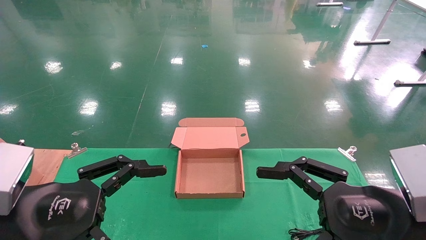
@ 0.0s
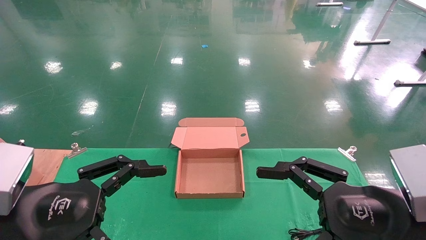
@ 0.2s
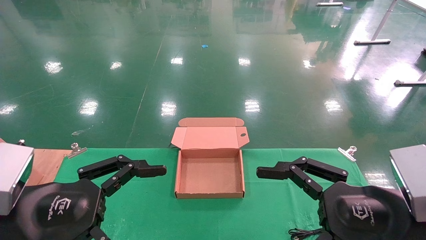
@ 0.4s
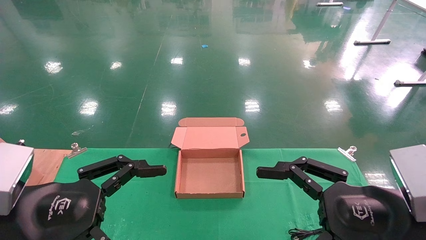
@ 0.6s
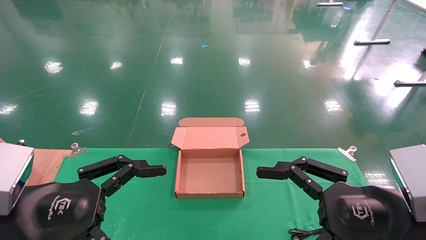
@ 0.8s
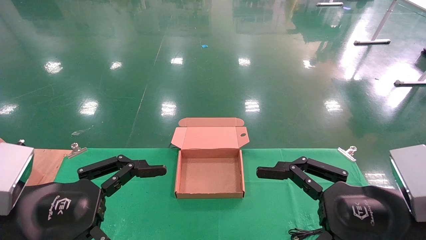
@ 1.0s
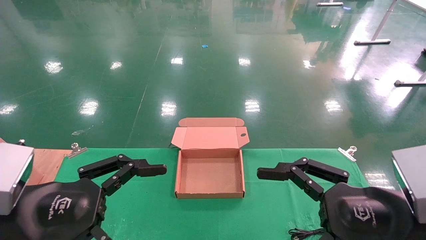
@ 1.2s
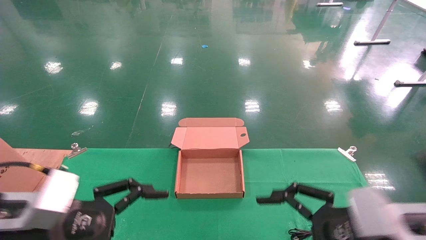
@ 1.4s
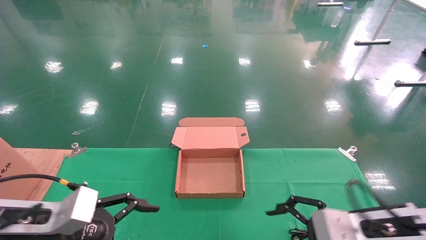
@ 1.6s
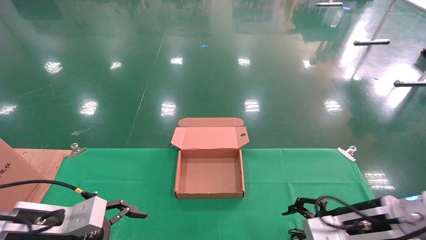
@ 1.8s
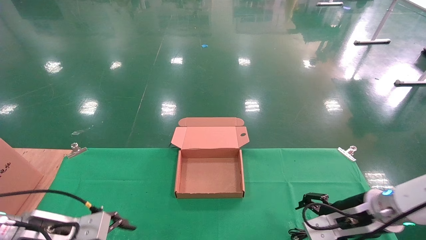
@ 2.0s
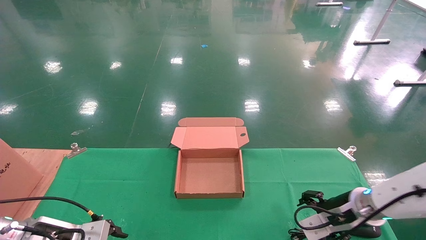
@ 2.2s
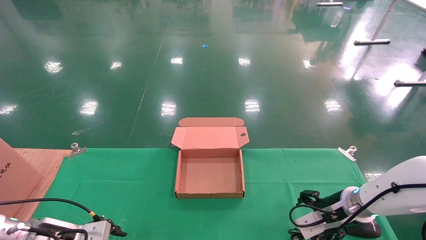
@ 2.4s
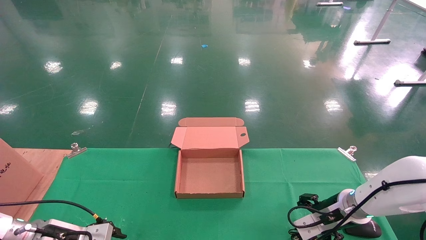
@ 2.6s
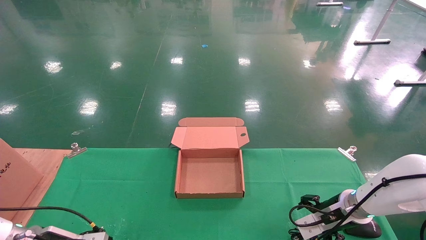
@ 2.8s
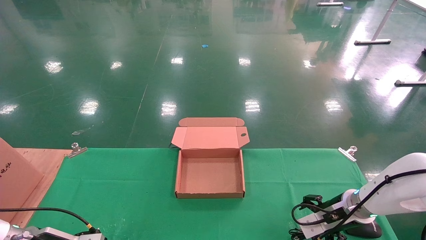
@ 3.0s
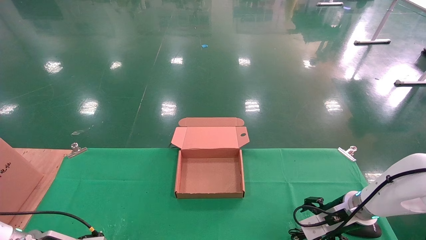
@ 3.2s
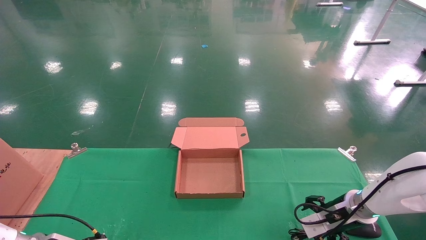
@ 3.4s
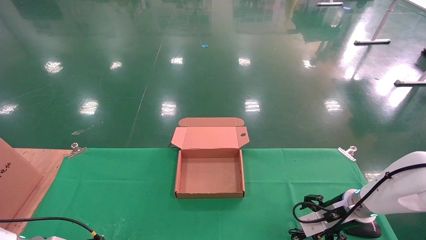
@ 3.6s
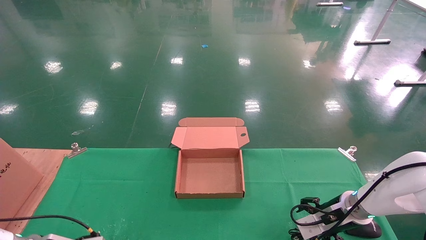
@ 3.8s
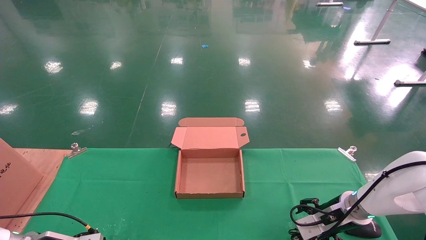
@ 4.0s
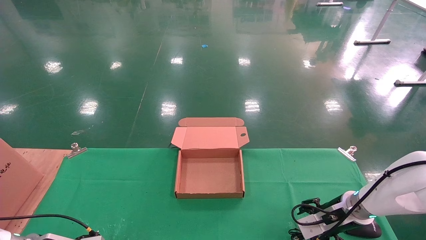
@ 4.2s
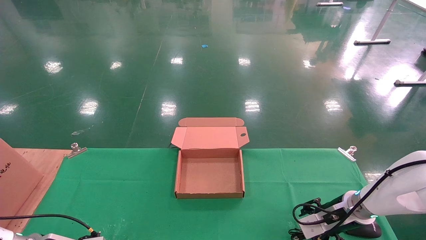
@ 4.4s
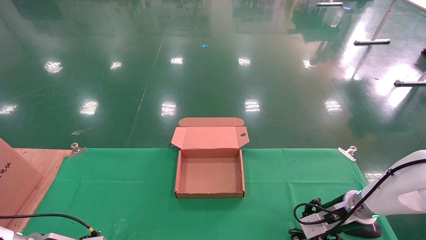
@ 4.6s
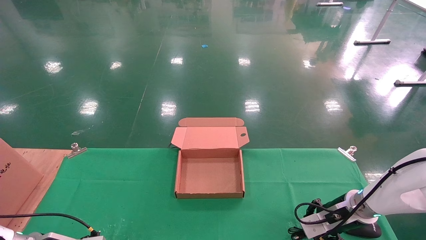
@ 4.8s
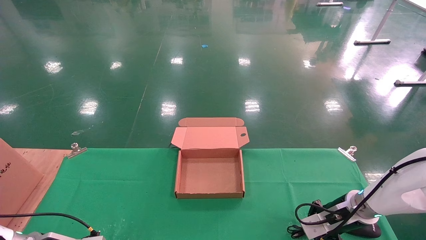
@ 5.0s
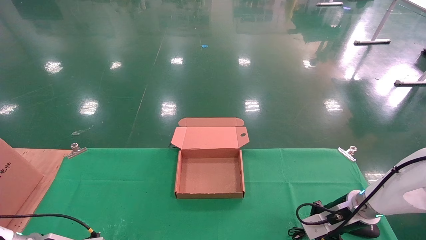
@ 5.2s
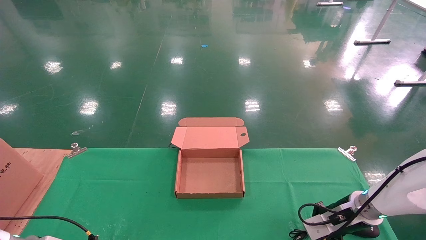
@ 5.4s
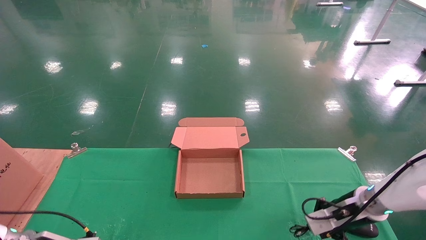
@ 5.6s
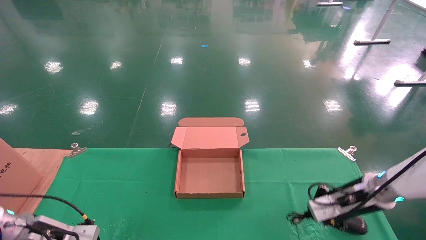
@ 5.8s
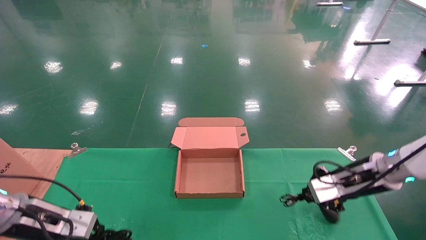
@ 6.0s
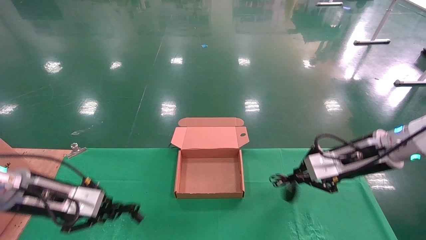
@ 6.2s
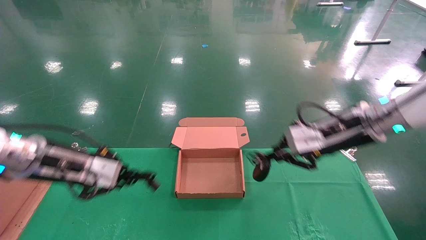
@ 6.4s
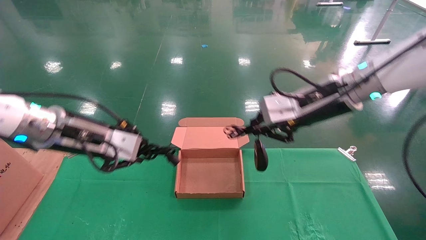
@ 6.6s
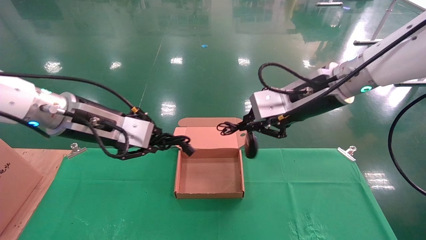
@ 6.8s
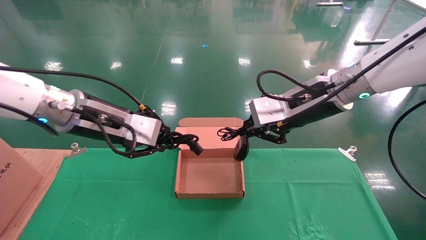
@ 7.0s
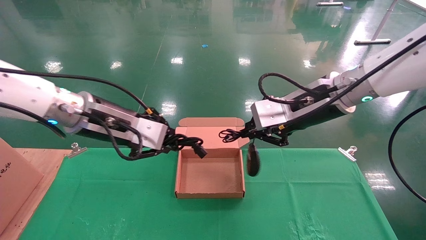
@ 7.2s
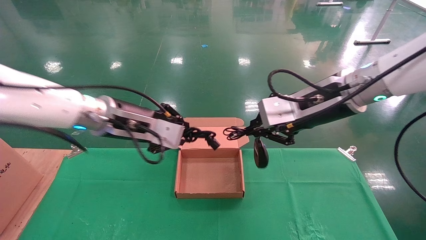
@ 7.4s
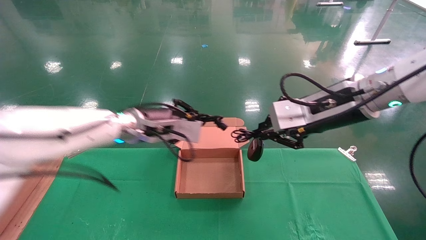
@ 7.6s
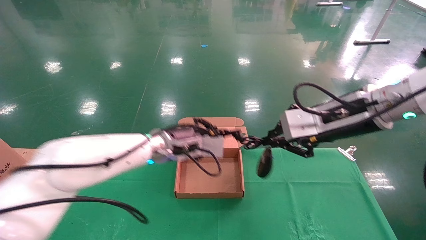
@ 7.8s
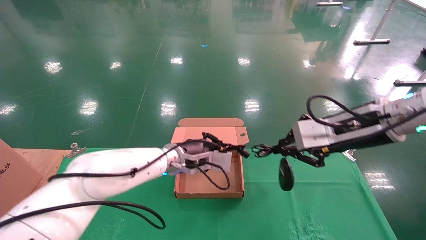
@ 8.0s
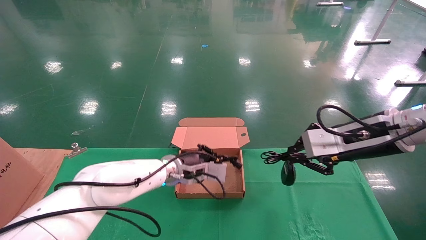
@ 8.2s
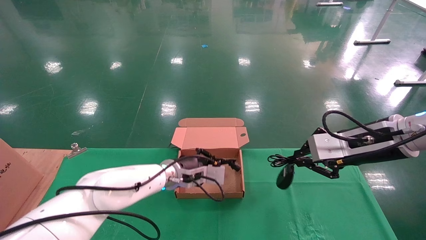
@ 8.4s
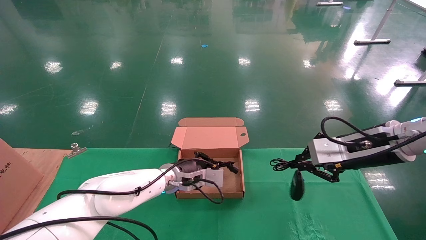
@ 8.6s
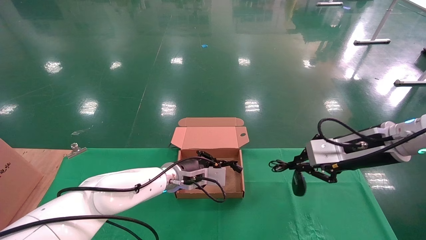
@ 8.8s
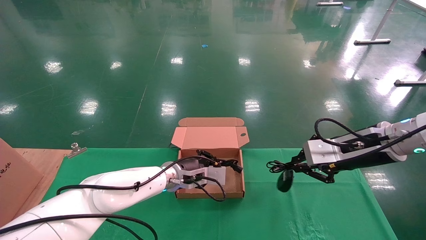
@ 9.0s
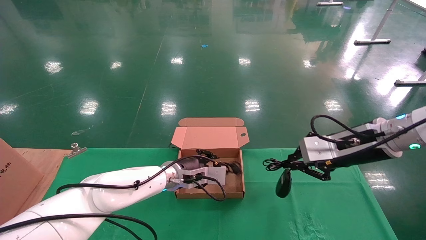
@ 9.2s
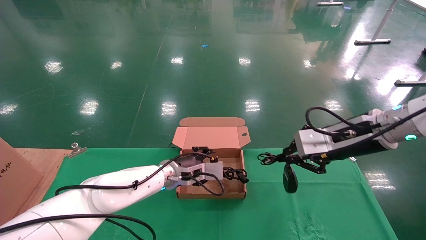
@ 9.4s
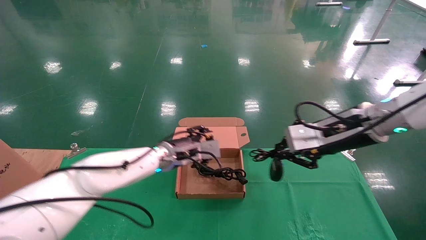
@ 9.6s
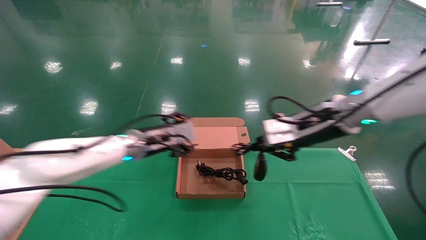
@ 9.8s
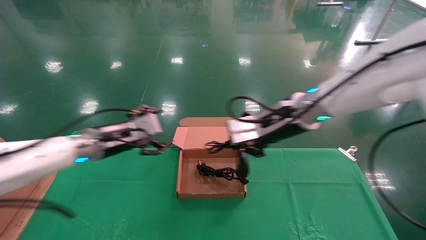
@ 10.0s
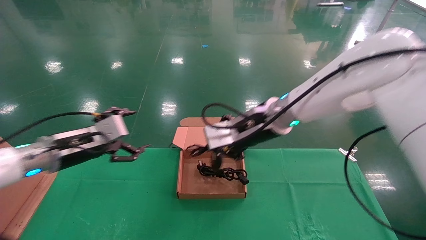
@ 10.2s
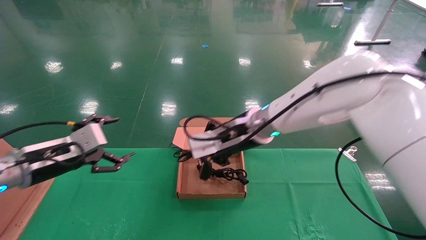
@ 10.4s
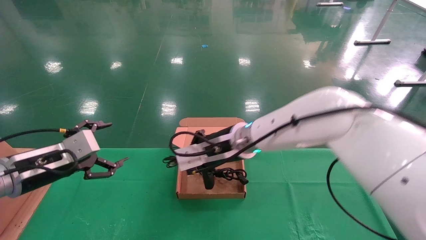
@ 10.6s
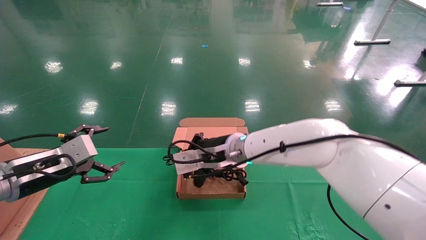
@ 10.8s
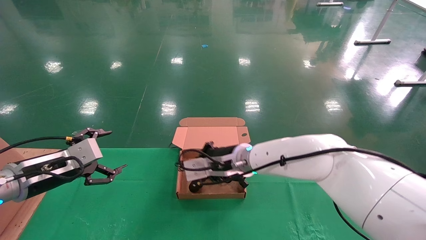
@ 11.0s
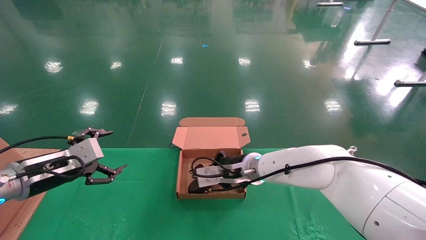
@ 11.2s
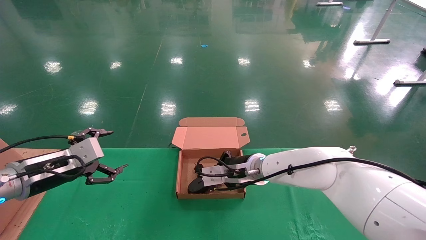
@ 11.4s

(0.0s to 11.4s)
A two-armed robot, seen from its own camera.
Step, 1.8s - 6.0s: Grab and lift both the mouse and power cord from the accessory packaging area at the same time.
0.0s - 1.4s: The right gripper ends up about 5 cm from where it was.
1.4s - 2.8s: The left gripper is displaced downward, forward and to the left by roughly 20 cm. The right gripper shifts roughly 20 cm forward and downward.
2.8s - 4.2s: The grippers make only small movements.
4.2s - 5.6s: The right gripper closes. Meanwhile the left gripper closes its fingers.
5.6s - 7.2s: The left gripper travels upward and to the right by approximately 30 cm. The right gripper goes roughly 30 cm upward and to the left.
7.2s - 8.6s: The right gripper is displaced to the right and downward by about 15 cm. Meanwhile the left gripper heads downward, forward and to the right, covering approximately 25 cm.
8.6s - 10.0s: The left gripper shifts some 20 cm to the left and upward, and opens; the right gripper heads to the left, covering approximately 15 cm.
10.0s - 11.4s: The right gripper shifts about 20 cm downward, forward and to the left. The left gripper moves to the left and backward, roughly 10 cm.

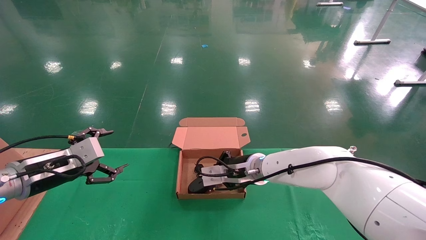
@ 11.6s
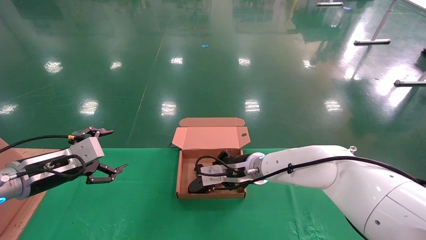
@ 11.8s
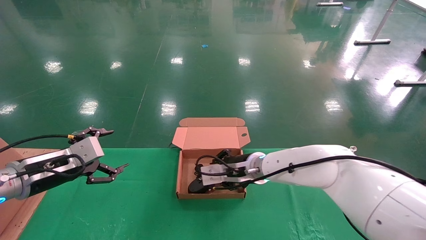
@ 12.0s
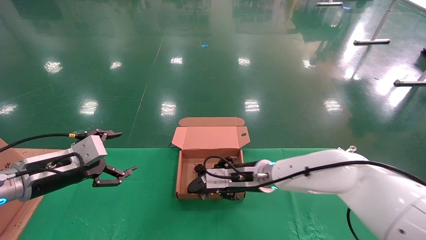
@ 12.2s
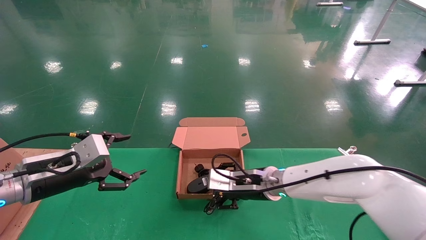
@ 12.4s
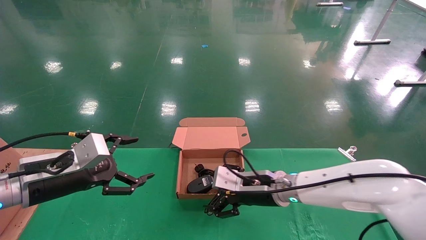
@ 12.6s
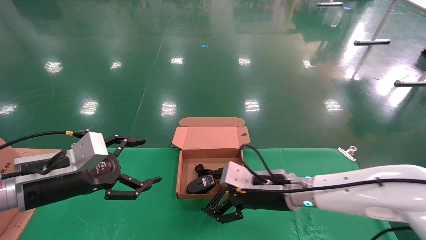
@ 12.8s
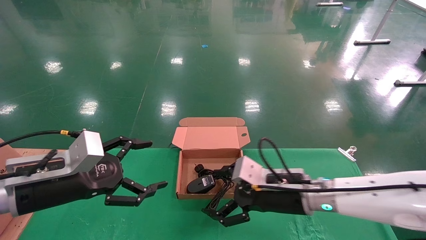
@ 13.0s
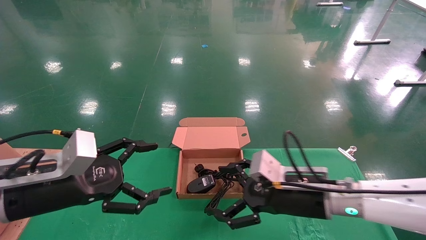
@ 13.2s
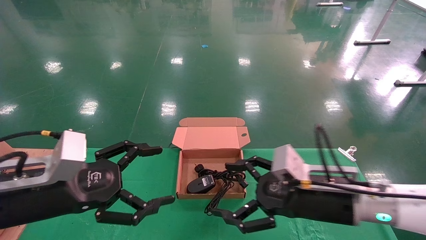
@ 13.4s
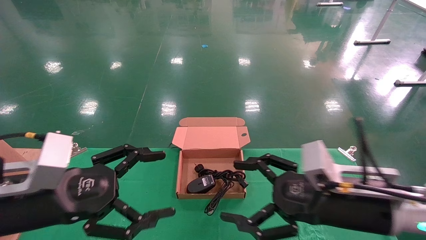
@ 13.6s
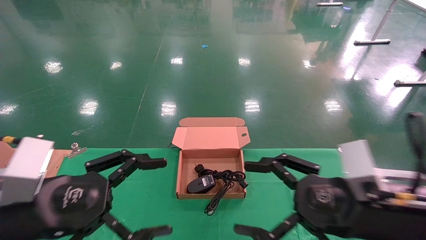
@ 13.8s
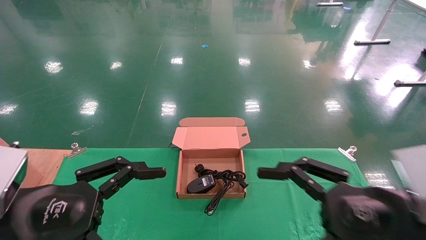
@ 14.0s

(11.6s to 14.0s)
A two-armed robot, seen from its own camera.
11.6s - 12.8s: The left gripper moves to the right and backward, some 10 cm, while the right gripper is displaced backward and to the right by about 10 cm, and opens its fingers.
12.8s - 14.0s: The right gripper shifts some 25 cm backward, to the right and upward. Meanwhile the left gripper travels backward by approximately 10 cm.

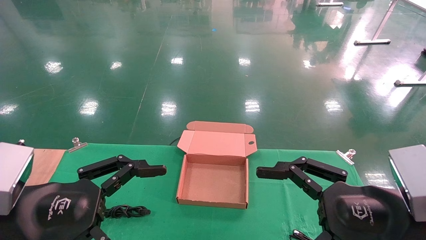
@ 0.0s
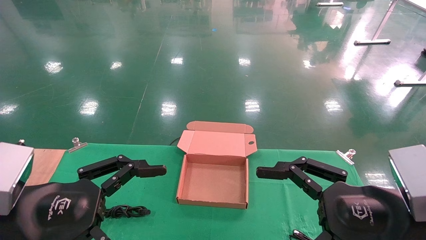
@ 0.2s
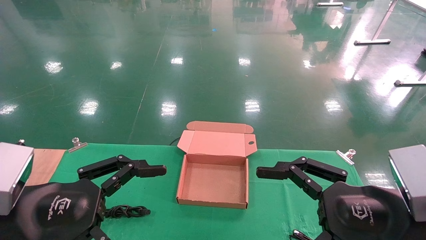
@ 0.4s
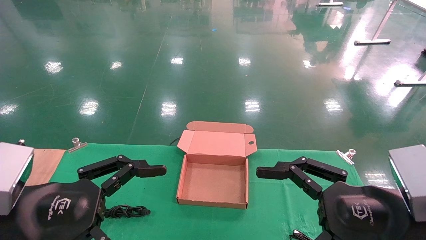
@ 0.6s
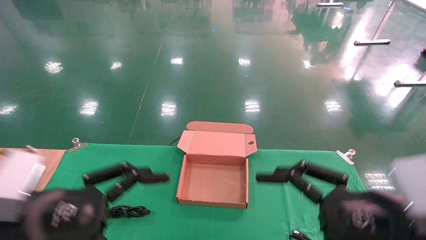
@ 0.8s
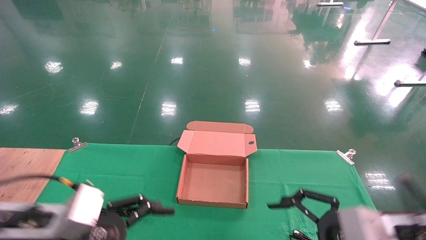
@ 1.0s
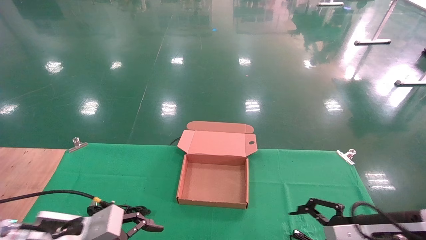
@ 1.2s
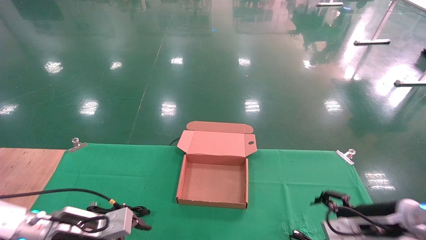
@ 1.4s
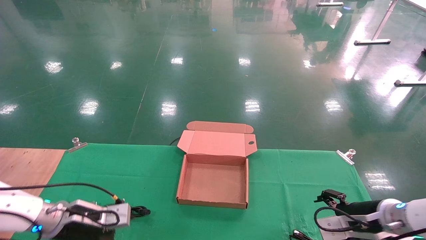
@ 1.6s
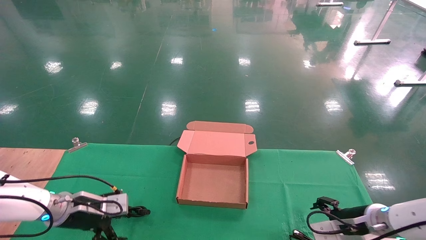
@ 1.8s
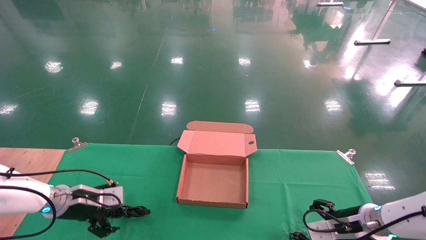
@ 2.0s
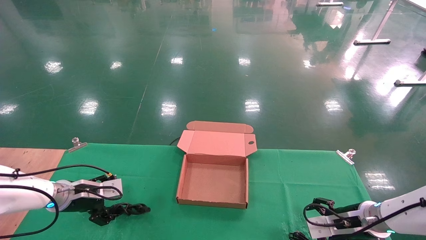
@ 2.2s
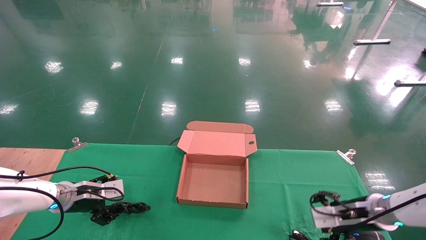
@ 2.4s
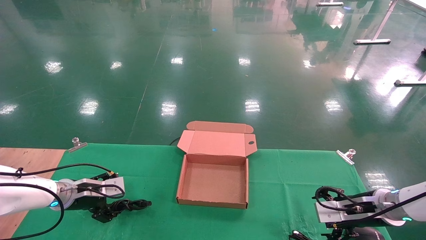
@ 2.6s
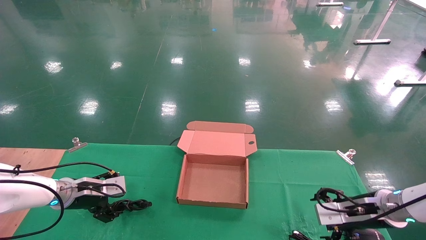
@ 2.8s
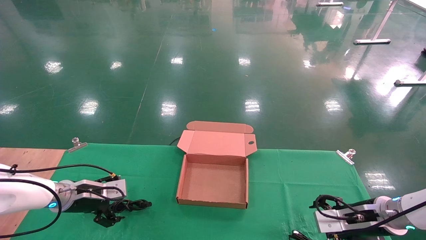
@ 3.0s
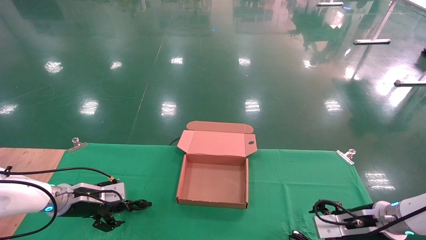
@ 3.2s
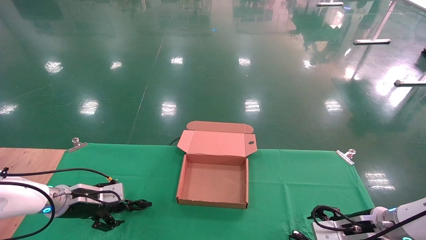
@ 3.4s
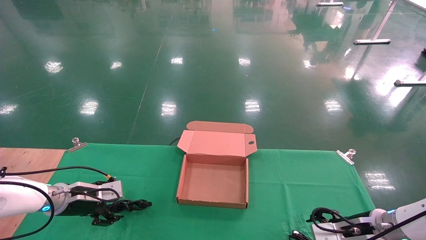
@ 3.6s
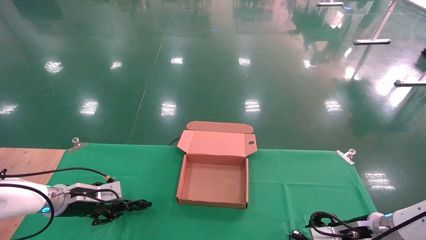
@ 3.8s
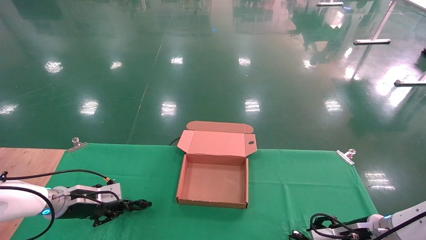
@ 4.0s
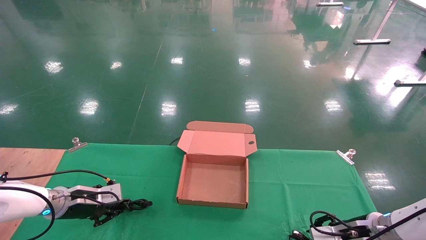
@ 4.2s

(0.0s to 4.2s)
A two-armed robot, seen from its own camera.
0.0s - 1.4s: The left gripper travels forward and downward by about 20 cm. The right gripper travels forward, downward and to the right by approximately 20 cm.
1.4s - 2.8s: The right gripper shifts approximately 5 cm forward; the left gripper is displaced forward and to the left by roughly 10 cm.
2.8s - 4.2s: The right gripper closes. The left gripper closes up.
